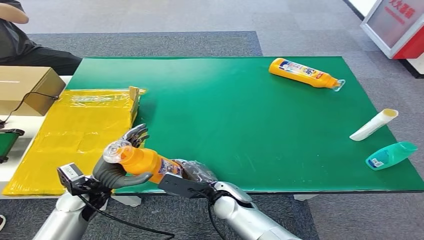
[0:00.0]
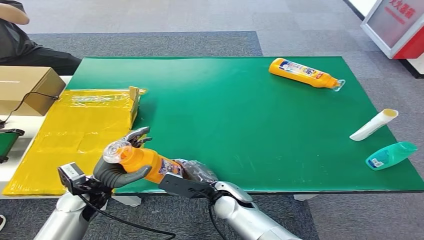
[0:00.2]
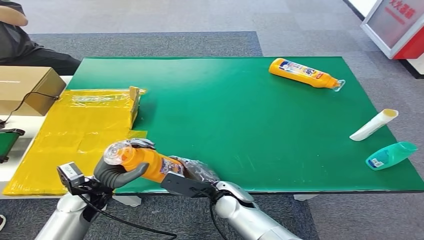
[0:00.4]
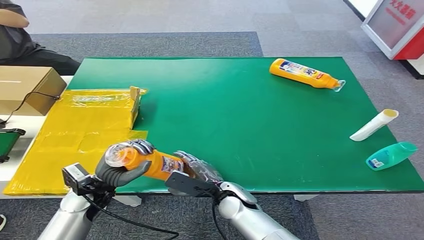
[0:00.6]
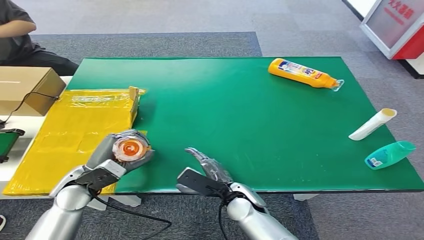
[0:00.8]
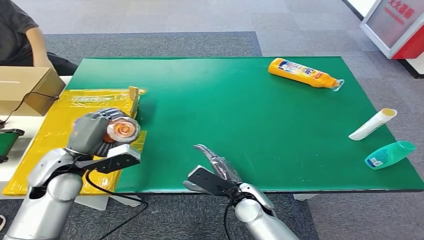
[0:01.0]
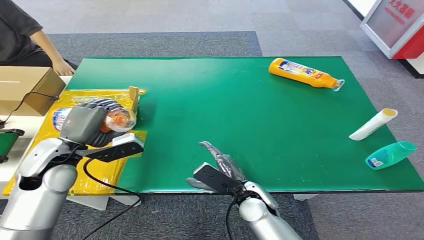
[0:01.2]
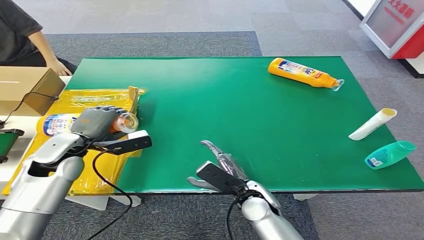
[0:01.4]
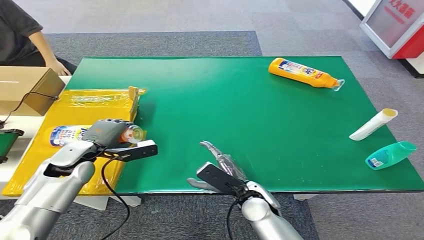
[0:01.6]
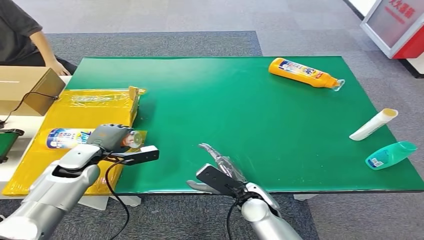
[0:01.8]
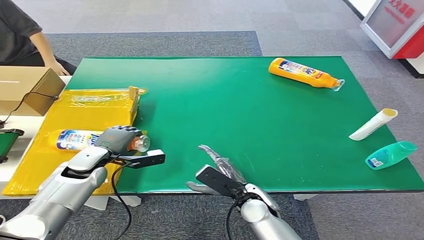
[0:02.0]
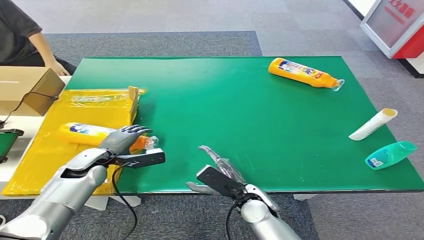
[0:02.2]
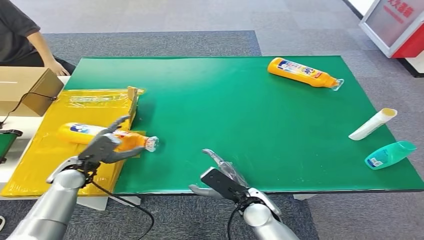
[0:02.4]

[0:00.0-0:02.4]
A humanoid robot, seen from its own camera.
Step, 0:00.0 to 0:02.4: Turn the bottle to the front side.
0:00.0 to 0:01.2: The left hand heads upward, covering about 15 cm, while the right hand shifts roughly 5 cm to the right.
0:01.2 to 0:02.4: The left hand moves downward, some 15 cm.
